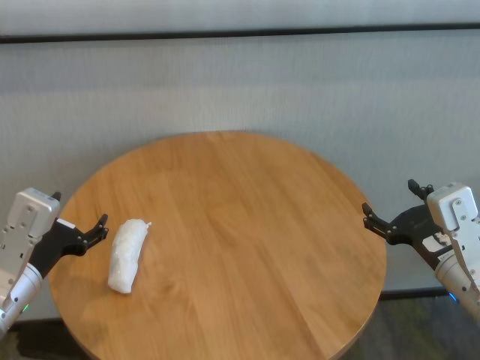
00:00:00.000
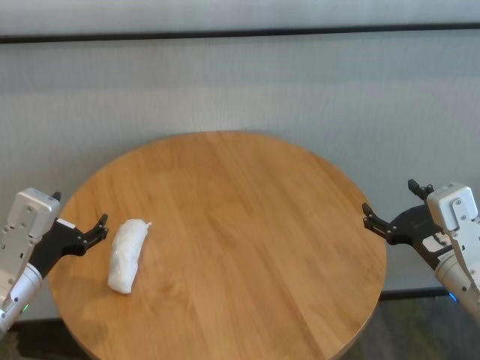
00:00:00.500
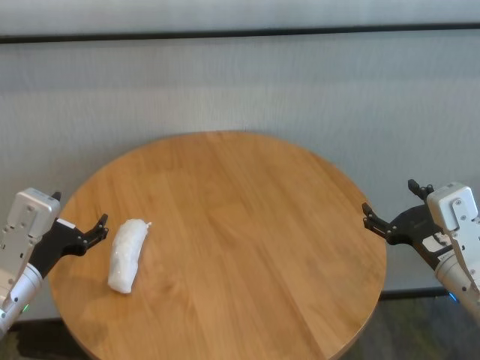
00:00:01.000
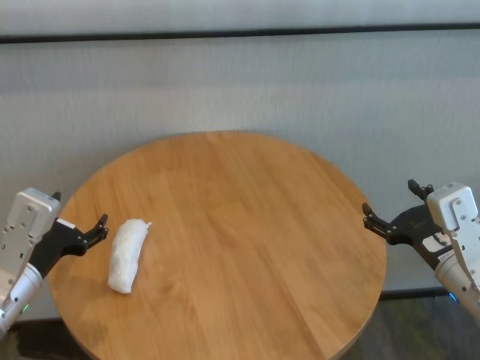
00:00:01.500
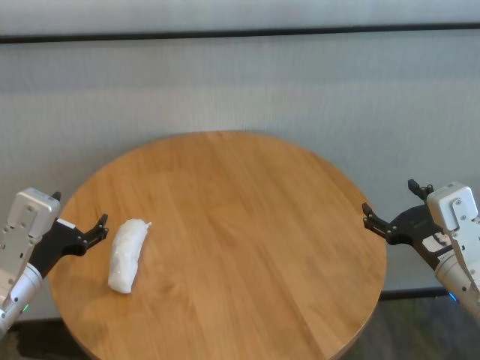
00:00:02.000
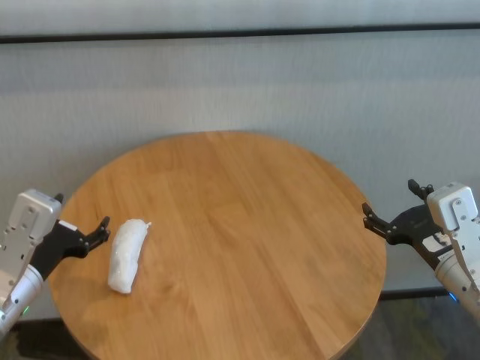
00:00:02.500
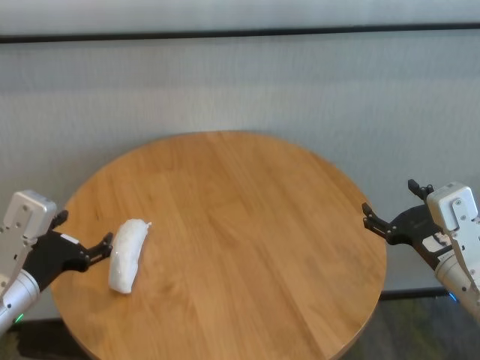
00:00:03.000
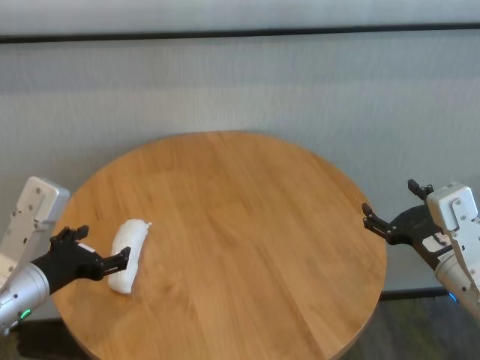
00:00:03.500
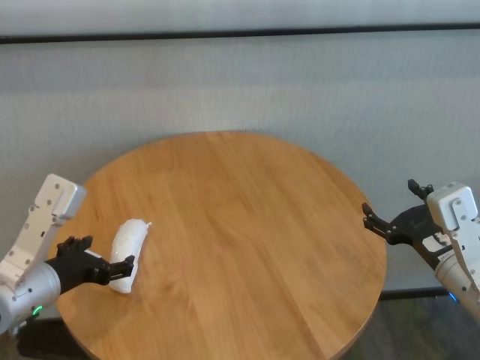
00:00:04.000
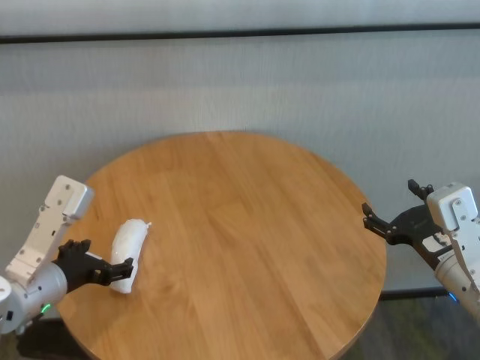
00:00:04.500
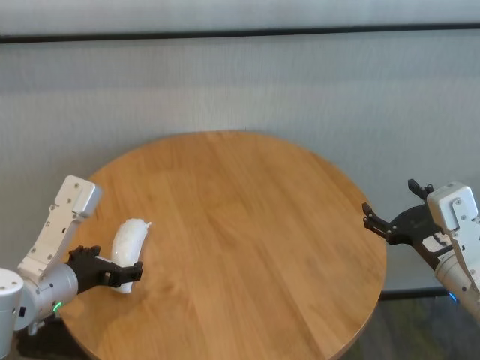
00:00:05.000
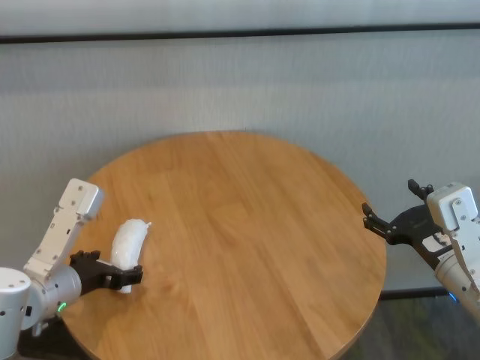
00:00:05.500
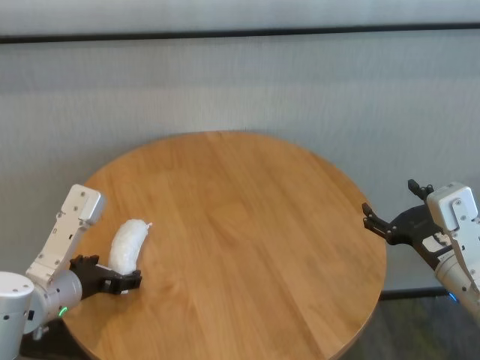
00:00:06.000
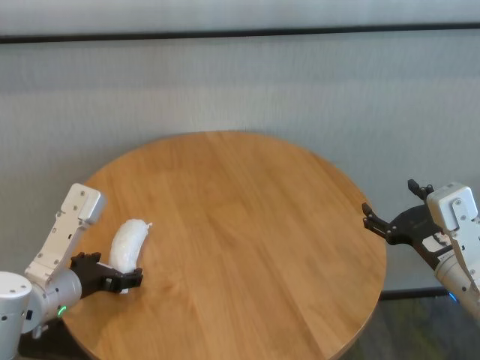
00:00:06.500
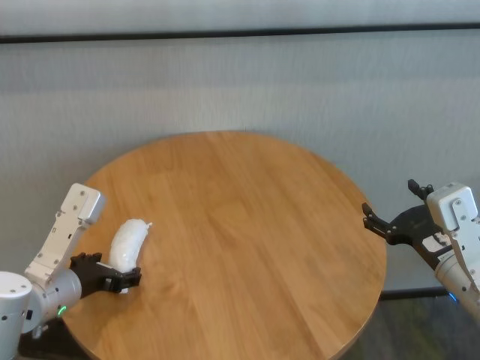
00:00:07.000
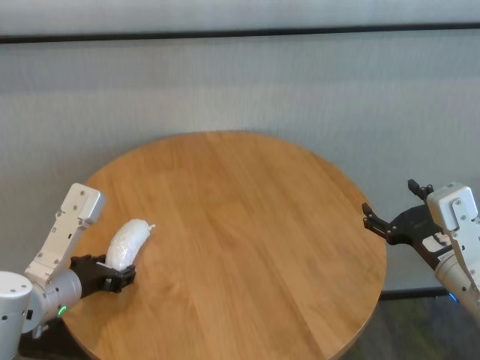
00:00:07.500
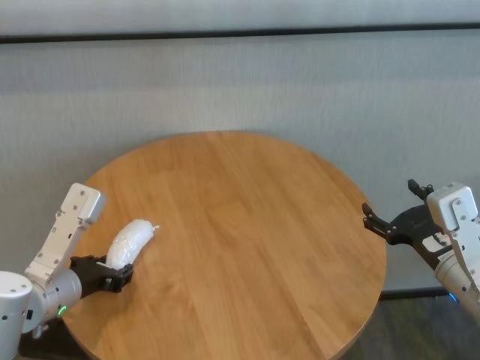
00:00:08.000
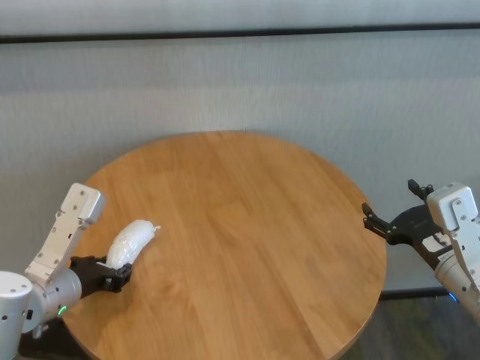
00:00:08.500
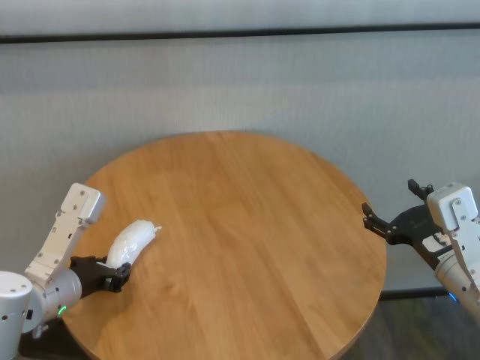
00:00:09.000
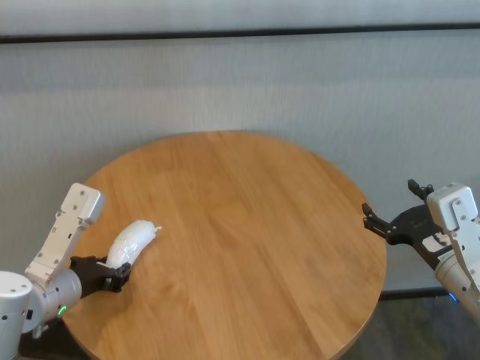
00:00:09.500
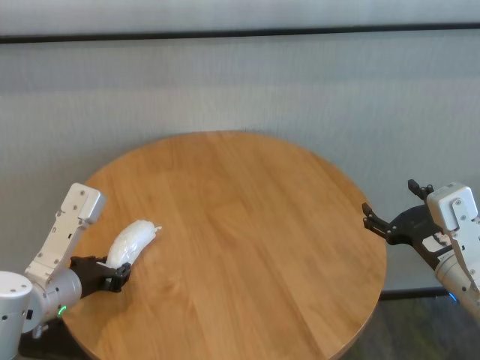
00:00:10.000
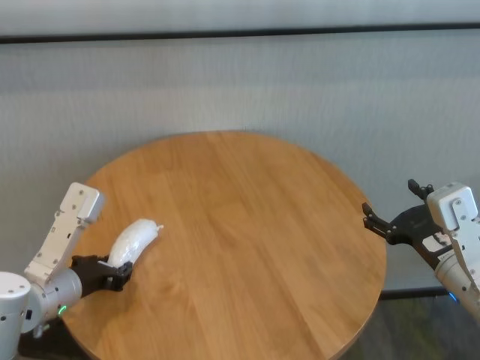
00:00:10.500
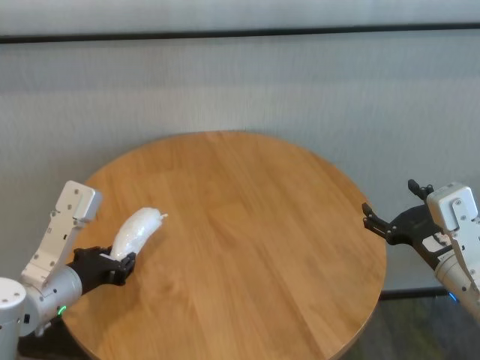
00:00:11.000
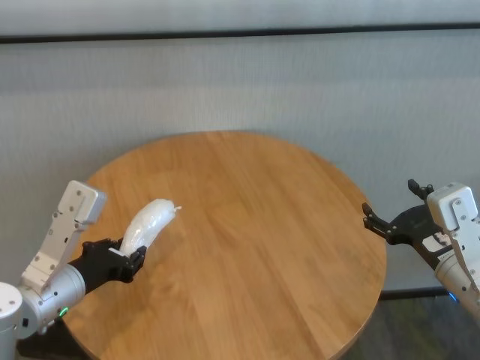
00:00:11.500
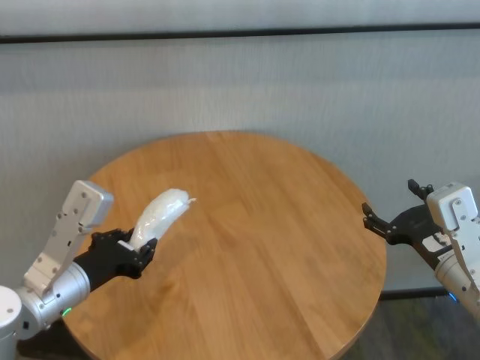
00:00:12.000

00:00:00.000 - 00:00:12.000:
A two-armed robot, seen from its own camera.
Task of the whole recording: One hand took the sandbag from the other hand and placed it on the table.
Step, 00:00:00.000 - 00:00:08.500: Grasp the paper ball with left gripper.

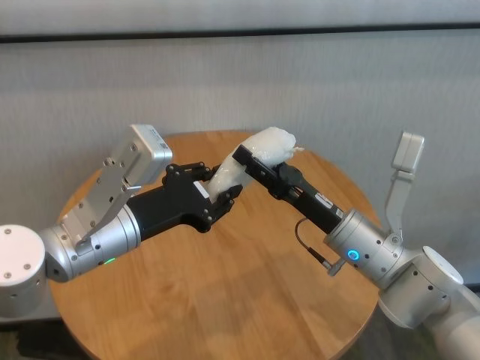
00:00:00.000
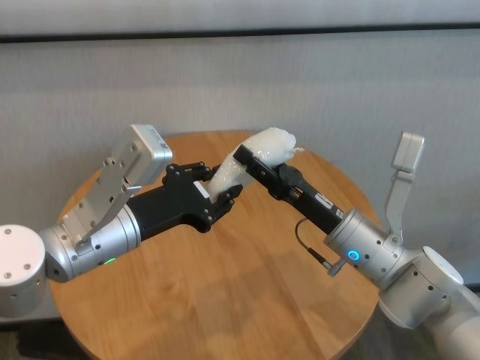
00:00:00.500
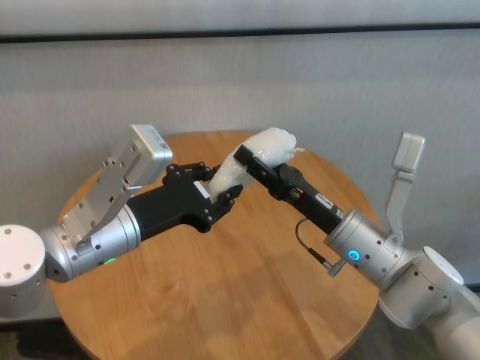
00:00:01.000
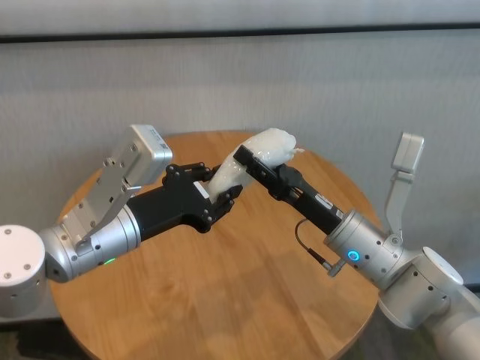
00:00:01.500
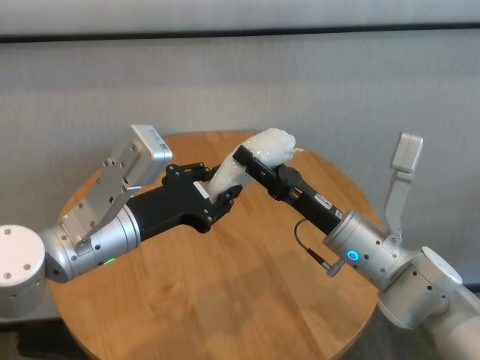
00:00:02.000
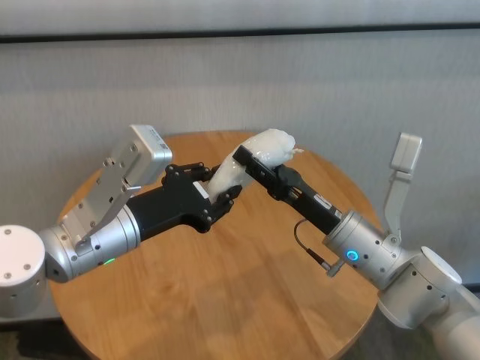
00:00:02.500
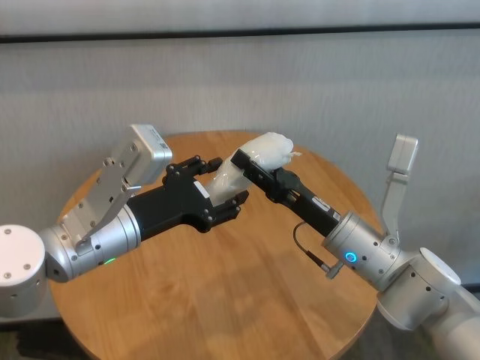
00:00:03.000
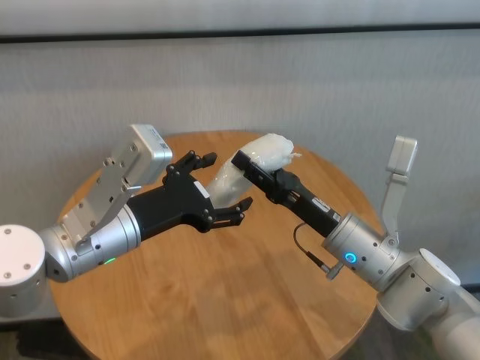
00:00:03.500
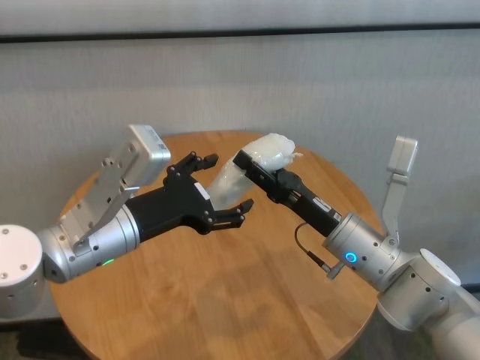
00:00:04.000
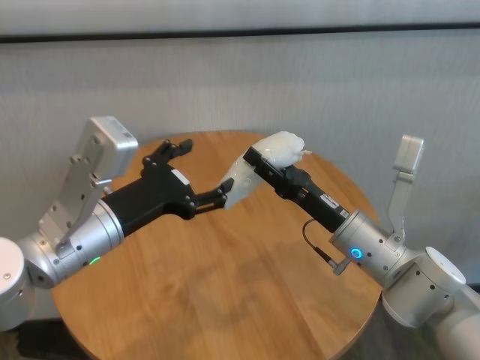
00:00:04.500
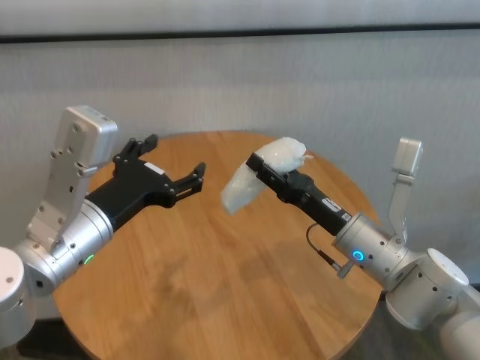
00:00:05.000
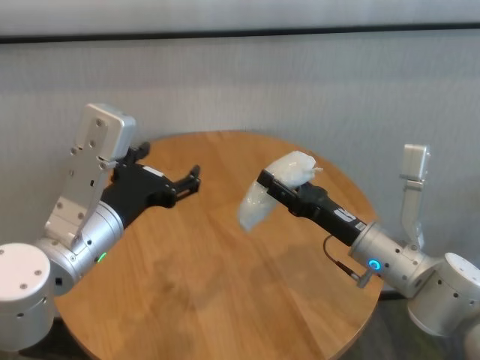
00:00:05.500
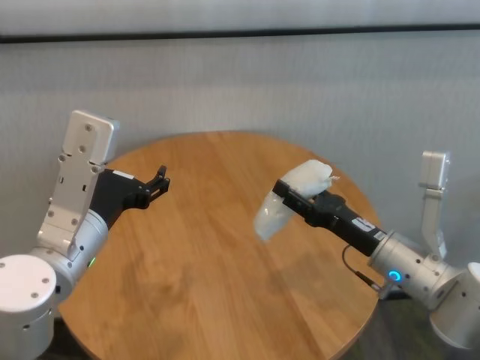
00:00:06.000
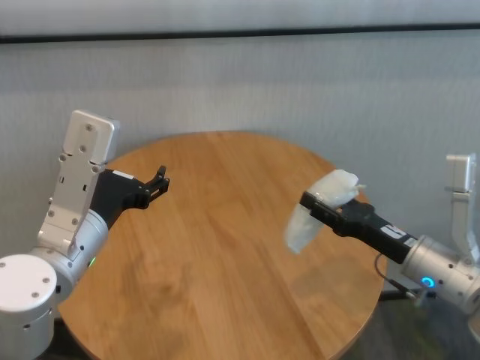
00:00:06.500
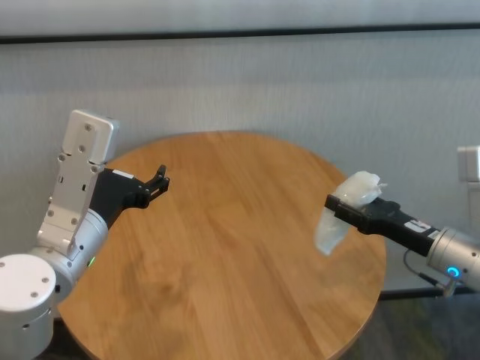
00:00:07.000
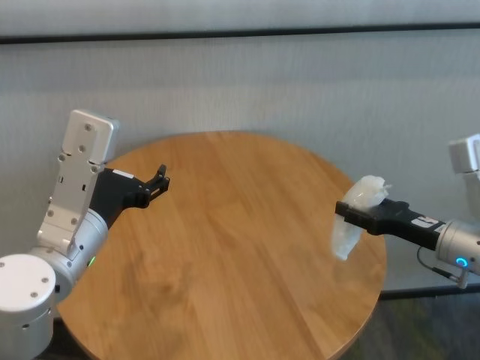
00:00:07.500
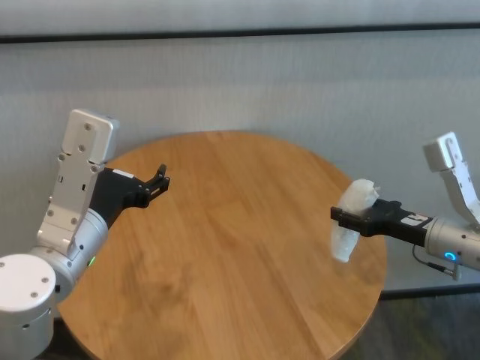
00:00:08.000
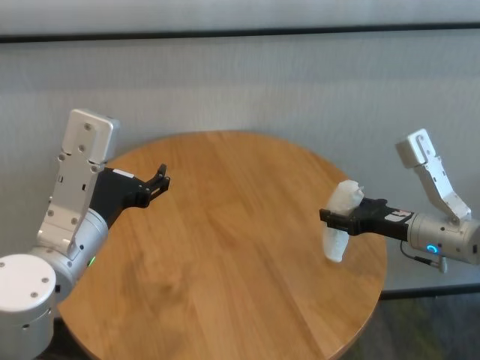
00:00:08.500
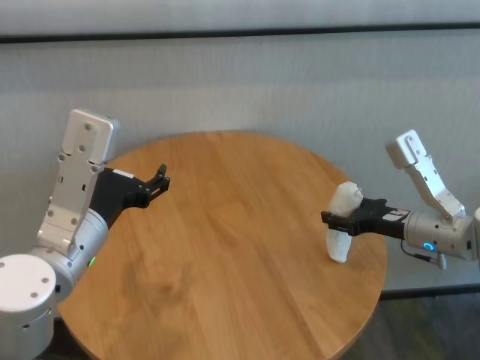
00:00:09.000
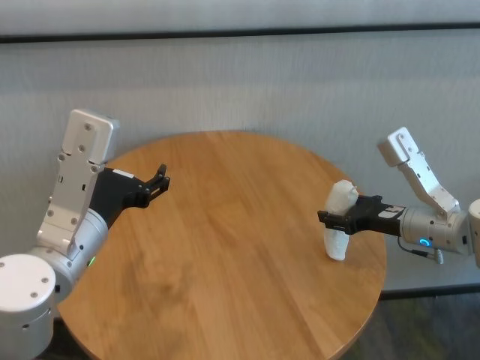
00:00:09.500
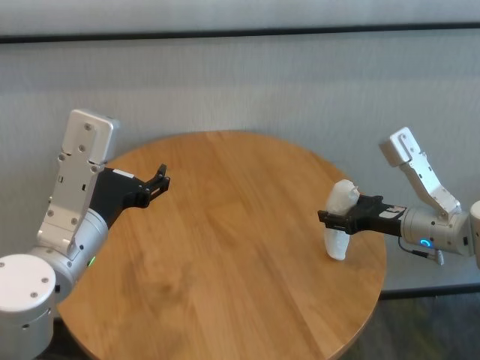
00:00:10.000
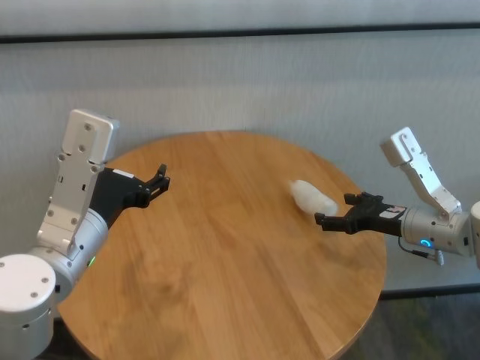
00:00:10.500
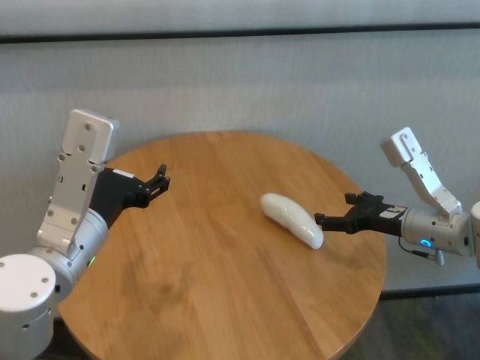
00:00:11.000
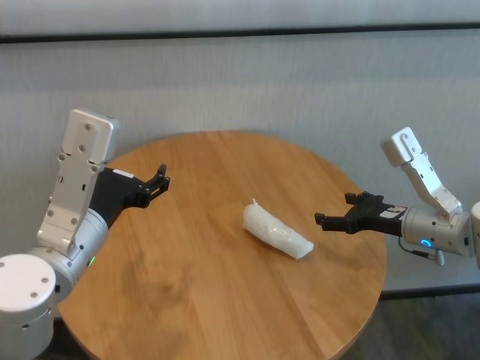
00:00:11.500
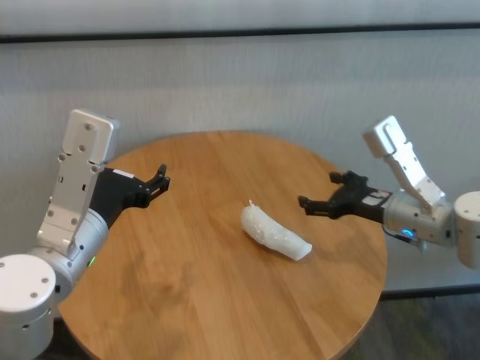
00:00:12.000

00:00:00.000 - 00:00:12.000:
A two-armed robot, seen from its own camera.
Task of the whole recording: One hand took the sandbag from the other hand and placed it on the table.
Step, 00:00:00.000 - 00:00:04.500: Pass the paper ball to the right gripper.
Step, 00:00:05.000 - 00:00:10.500: Place the paper ball on the table with right gripper.

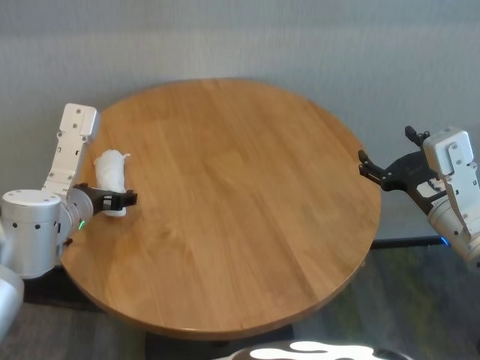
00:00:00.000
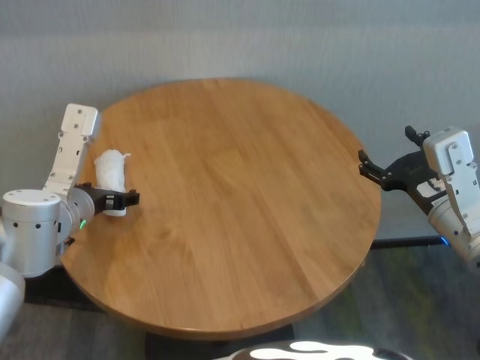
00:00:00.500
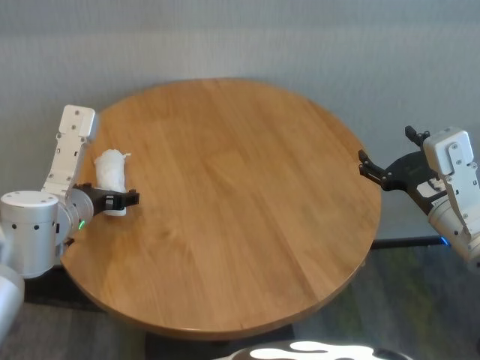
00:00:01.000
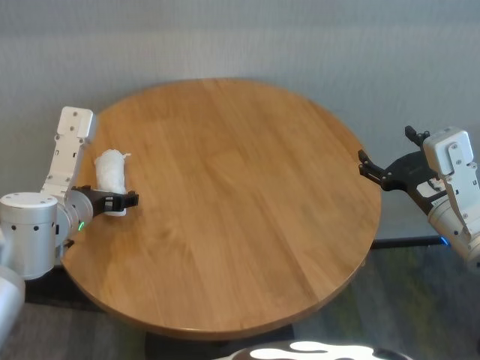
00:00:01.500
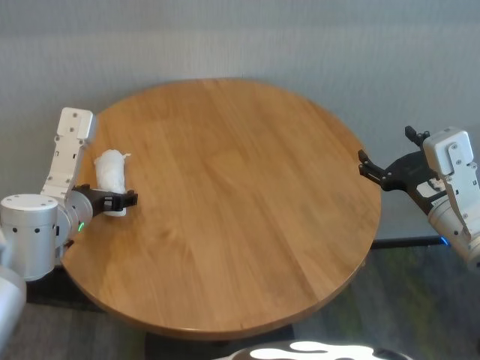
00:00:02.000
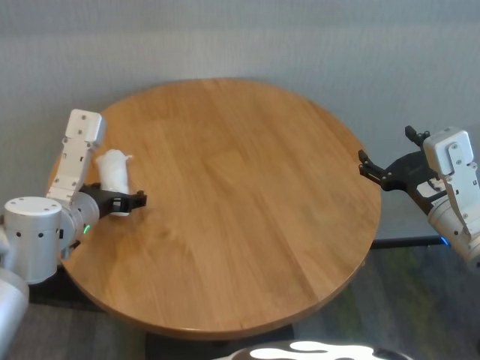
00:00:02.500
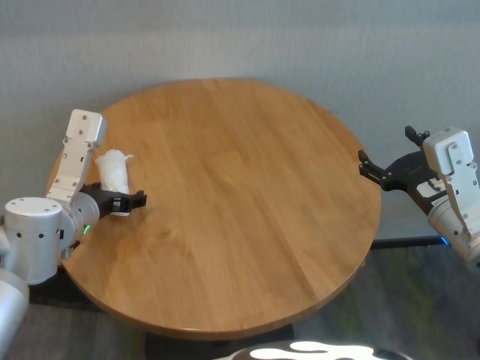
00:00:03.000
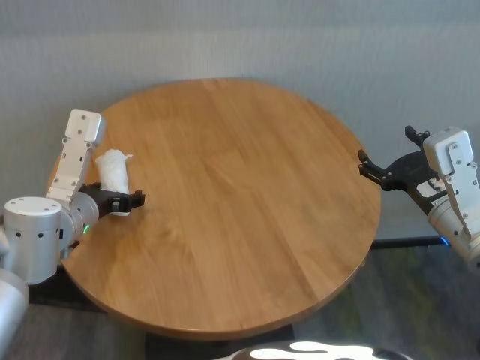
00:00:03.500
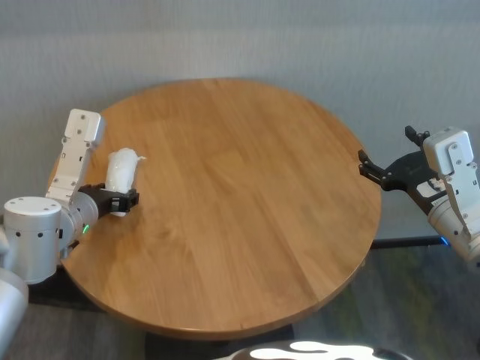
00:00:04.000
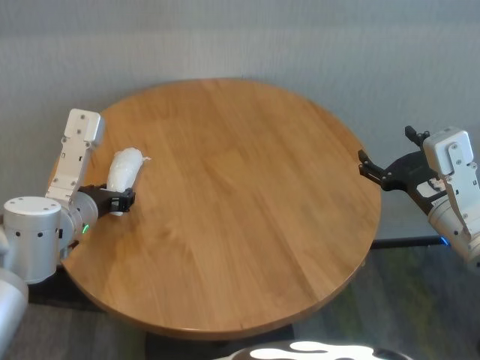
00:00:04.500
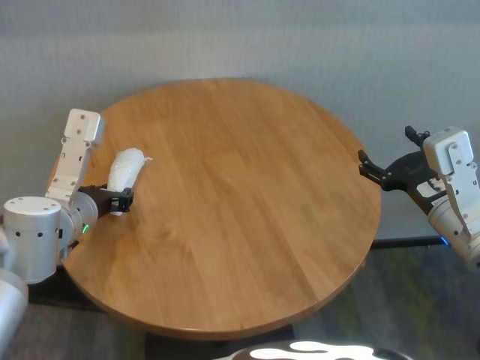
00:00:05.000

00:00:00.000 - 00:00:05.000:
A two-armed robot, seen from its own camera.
Task of the whole recording: One hand took the sandbag from the other hand and placed it on the table.
Step, 00:00:00.000 - 00:00:05.000: Grasp the paper ball with left gripper.
